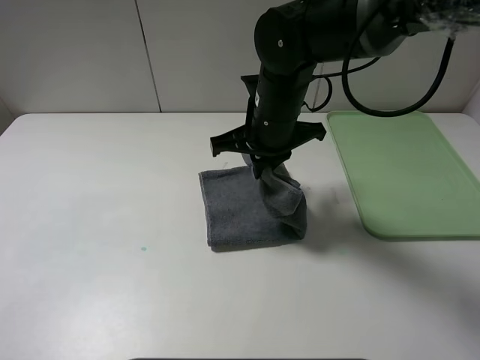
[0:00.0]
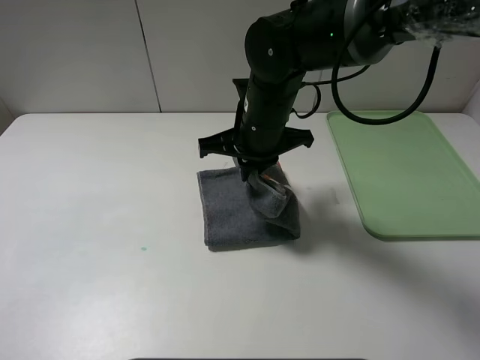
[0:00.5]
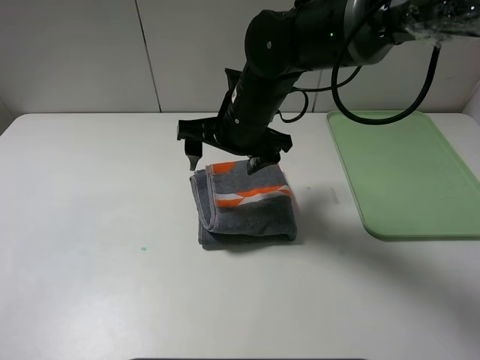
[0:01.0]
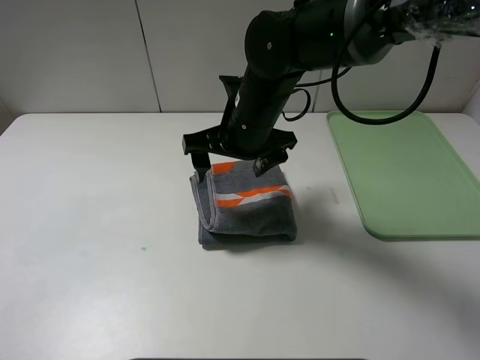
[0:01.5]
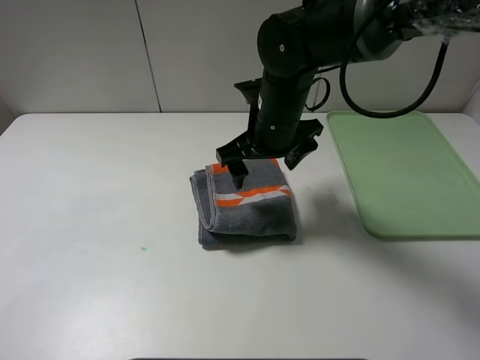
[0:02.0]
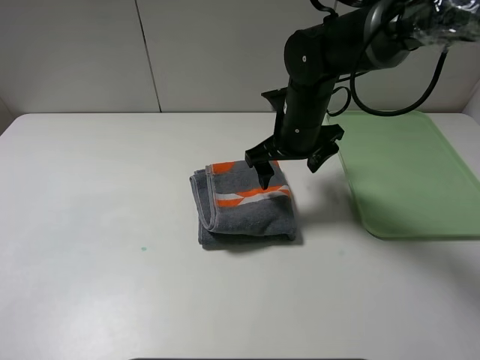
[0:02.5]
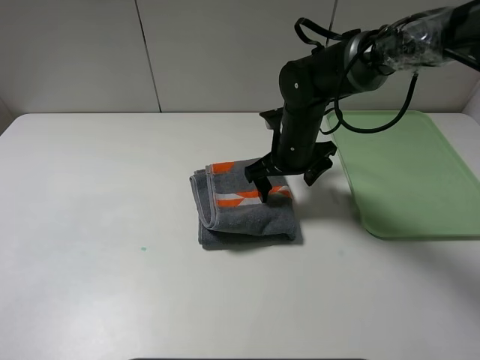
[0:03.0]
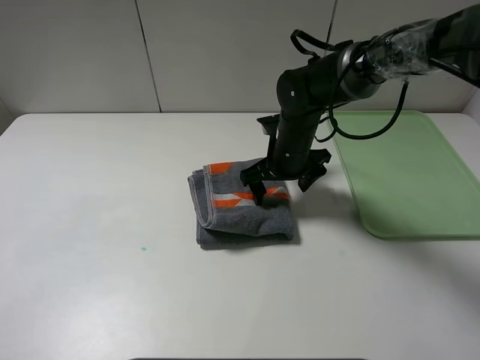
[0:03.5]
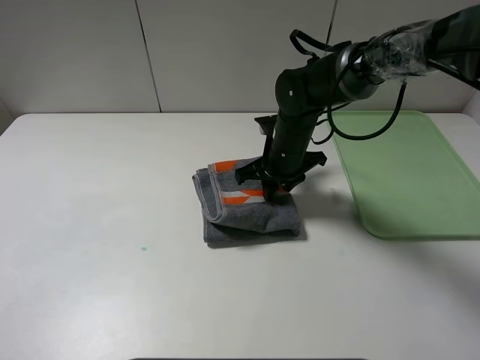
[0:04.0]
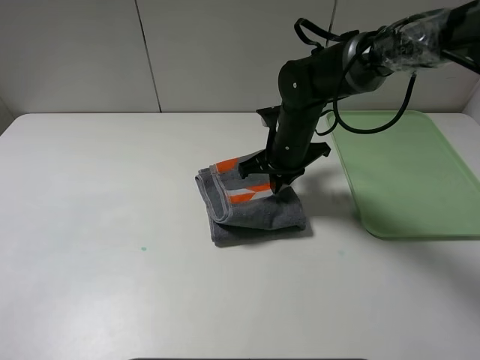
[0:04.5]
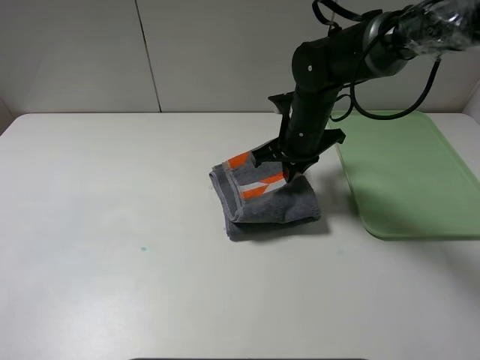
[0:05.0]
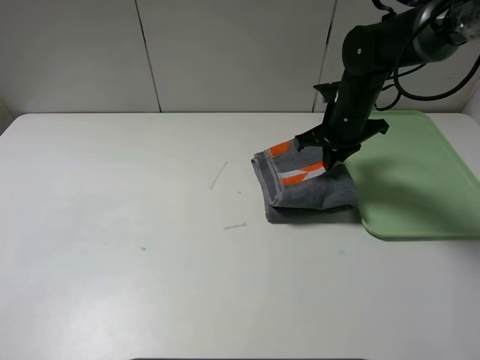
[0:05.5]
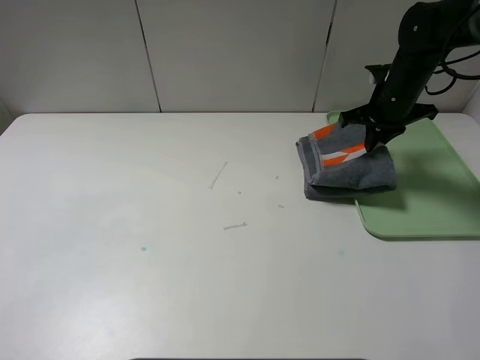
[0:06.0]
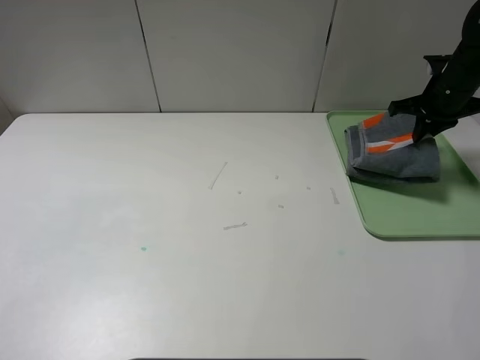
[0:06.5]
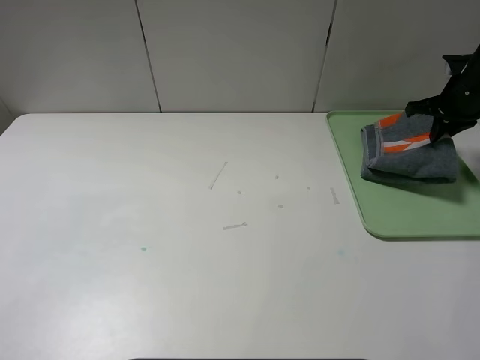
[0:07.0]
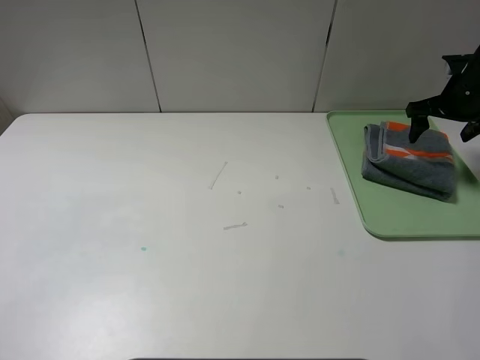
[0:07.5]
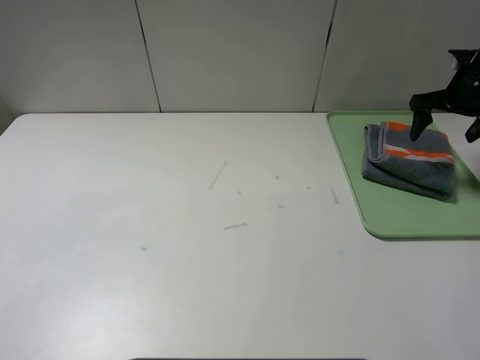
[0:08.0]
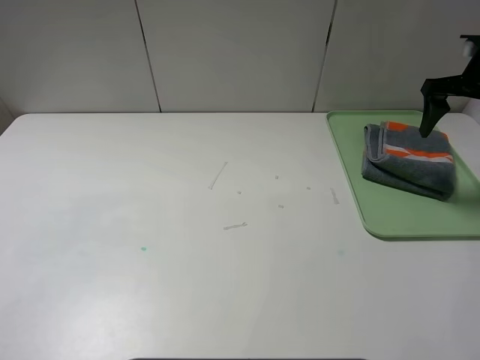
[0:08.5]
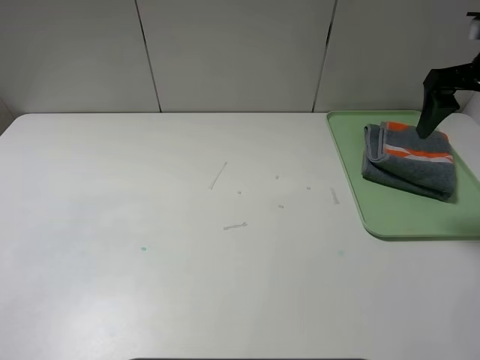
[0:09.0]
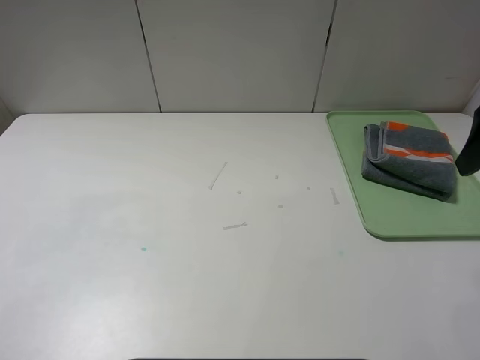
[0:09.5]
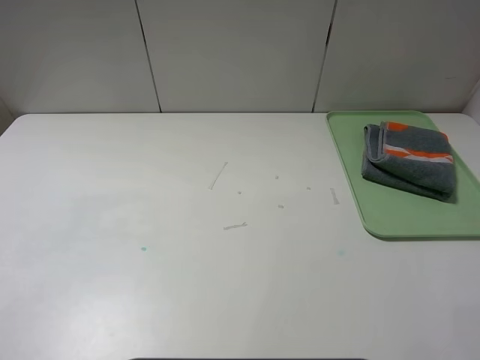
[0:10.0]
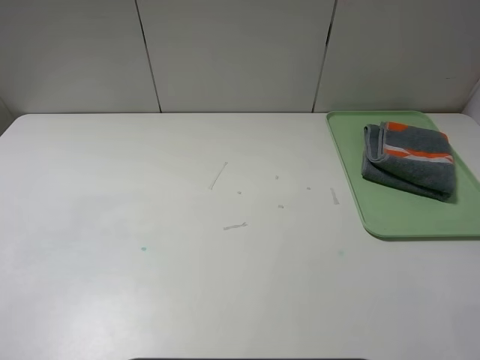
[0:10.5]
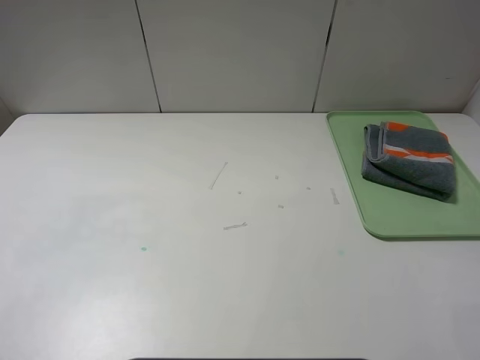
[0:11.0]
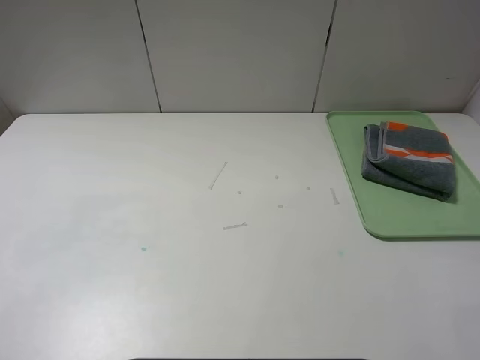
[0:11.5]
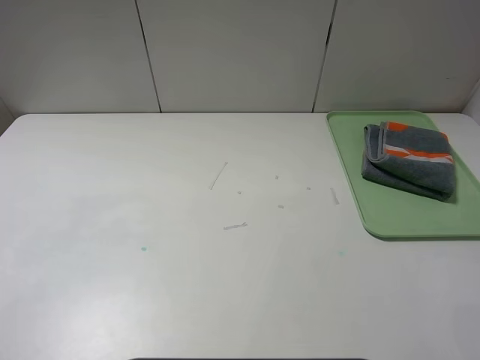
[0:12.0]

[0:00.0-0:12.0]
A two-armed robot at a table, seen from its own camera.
Step, 0:01.0 to 0:07.0: Place the folded grey towel on the tray with the right gripper.
0:00.0 to 0:02.0: The right gripper opens.
0:02.0 to 0:04.0: The right gripper goes approximately 10 cm downward, and closes.
0:04.0 to 0:06.0: The right gripper goes about 20 cm to the right.
0:06.0 to 0:08.0: The right gripper travels to the right by some 10 cm, and opens.
0:08.0 to 0:10.0: The right gripper travels backward by some 30 cm.

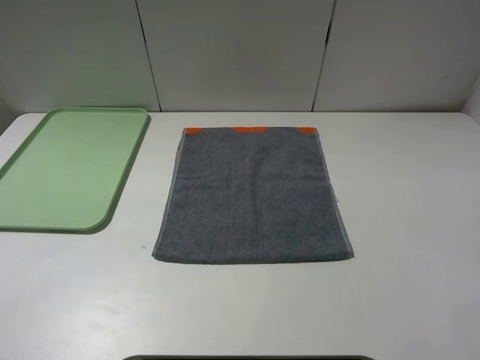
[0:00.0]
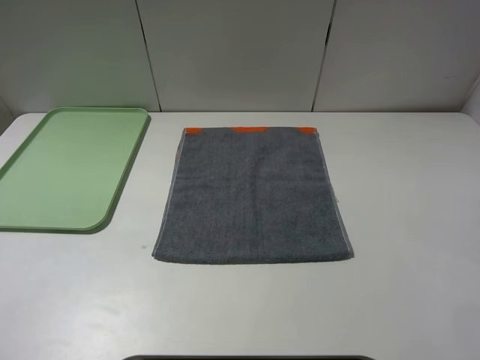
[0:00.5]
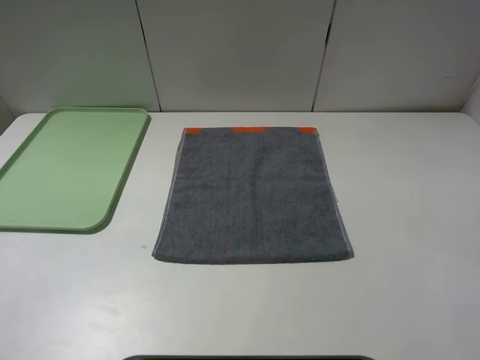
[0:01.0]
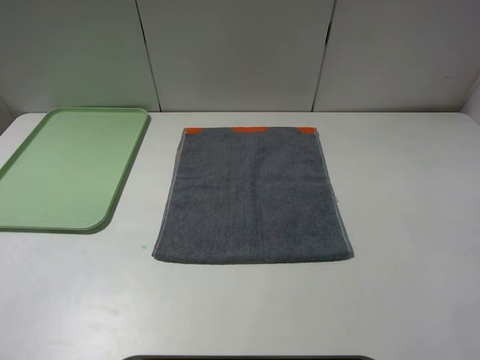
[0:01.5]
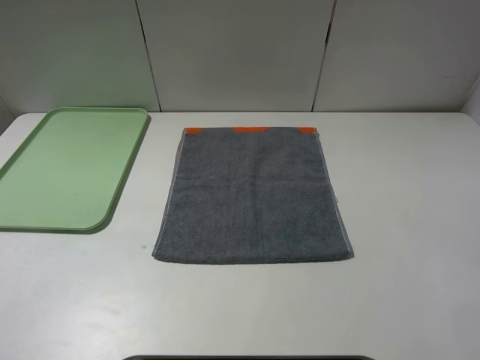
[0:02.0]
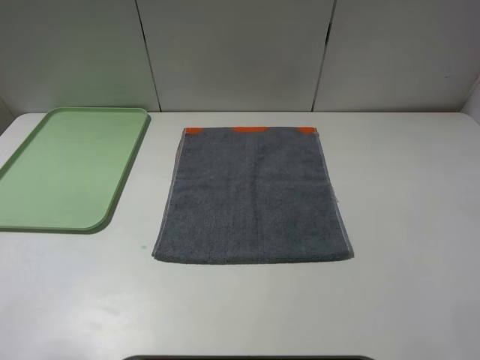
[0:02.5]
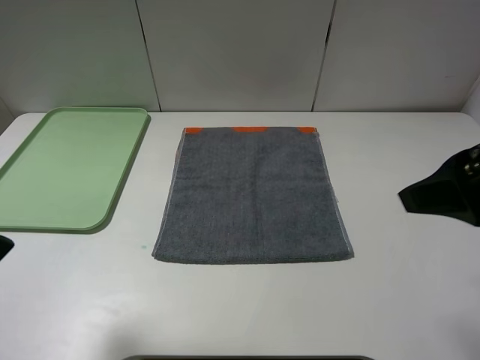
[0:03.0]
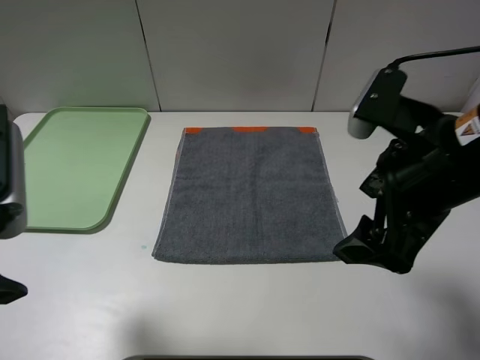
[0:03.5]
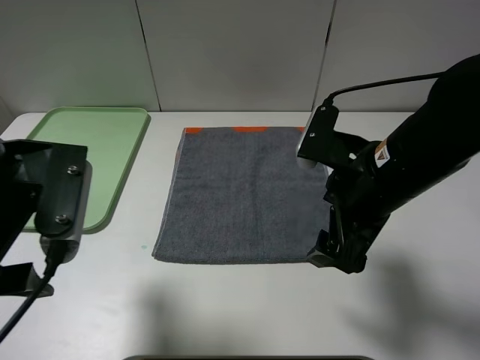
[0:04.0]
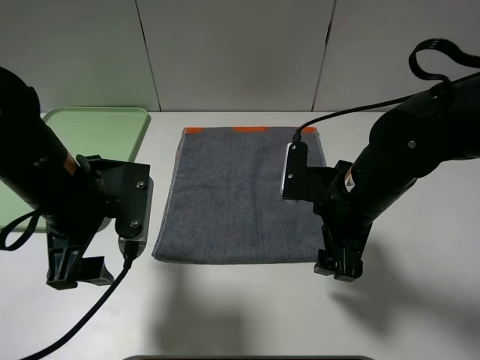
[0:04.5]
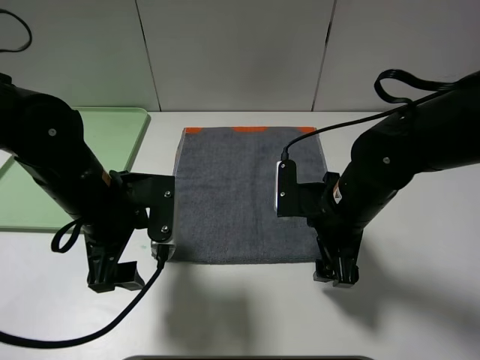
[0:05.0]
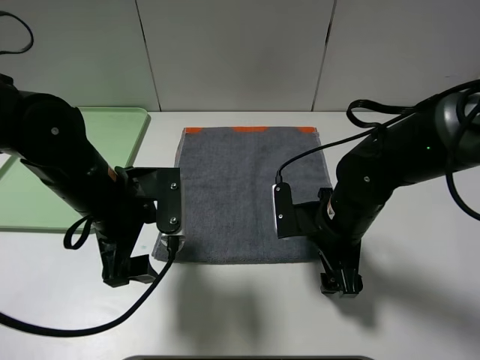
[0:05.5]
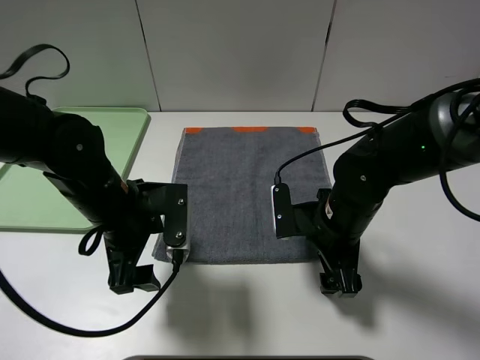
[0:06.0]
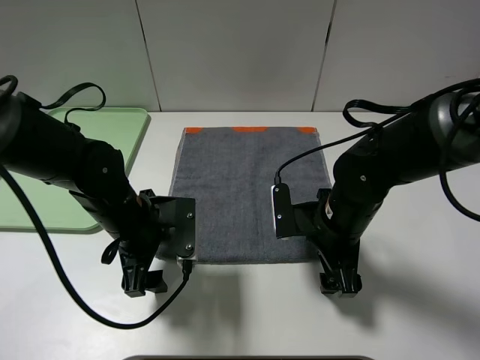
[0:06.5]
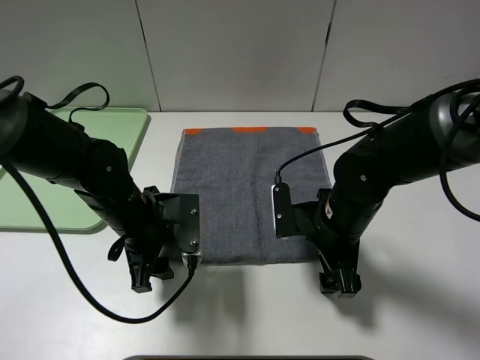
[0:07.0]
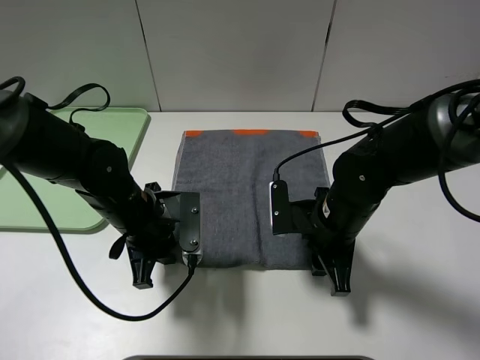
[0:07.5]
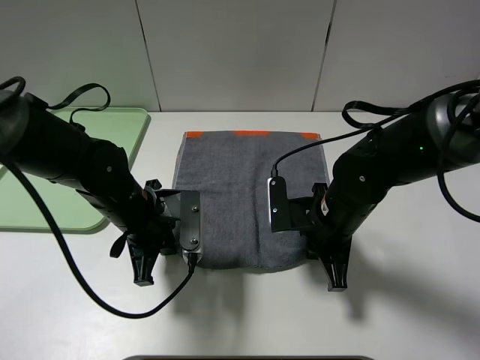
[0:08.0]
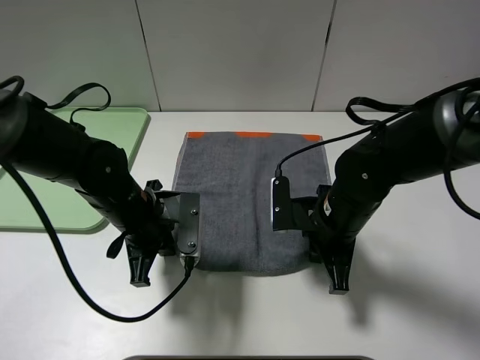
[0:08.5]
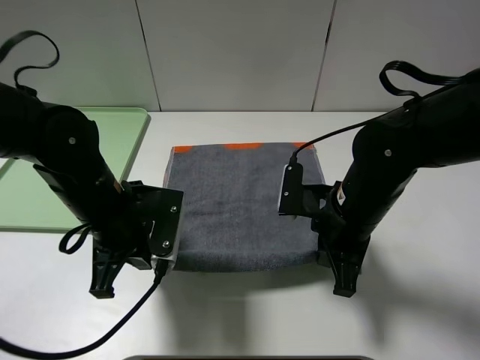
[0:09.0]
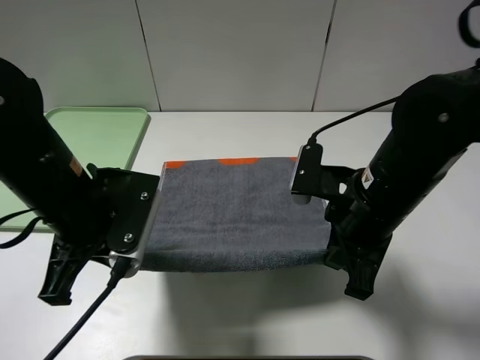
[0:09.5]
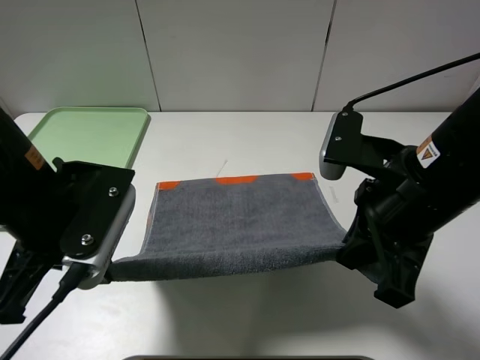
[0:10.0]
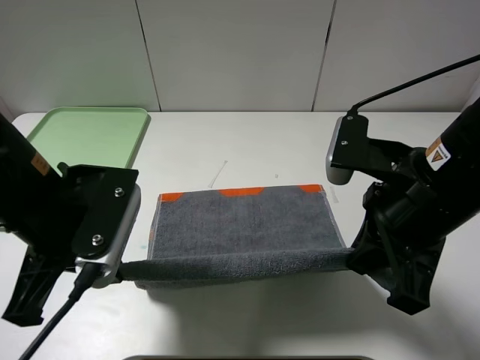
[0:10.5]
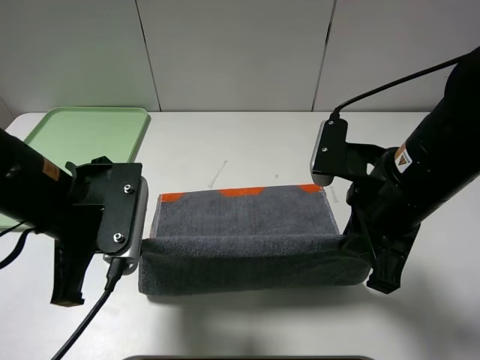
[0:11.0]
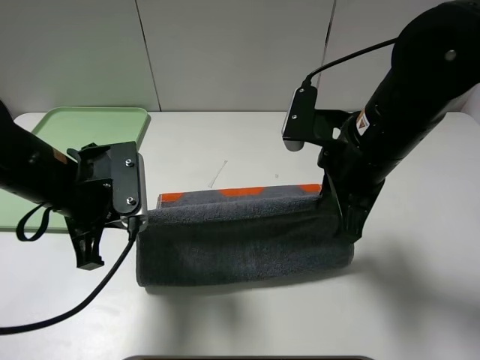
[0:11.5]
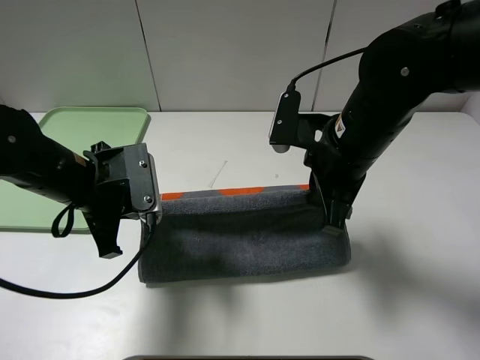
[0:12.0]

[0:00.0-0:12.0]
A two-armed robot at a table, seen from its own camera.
0:02.0 to 0:04.0: The right gripper travels forward, to the left and downward by about 25 cm. The left gripper shifts approximately 20 cm forward and to the right.
0:04.0 to 0:06.0: The left gripper moves downward, forward and to the right, some 15 cm, while the right gripper goes about 10 cm downward.
0:06.0 to 0:08.0: The right gripper closes up. The left gripper closes.
0:08.0 to 0:10.0: The two grippers go roughly 15 cm upward and backward.
0:10.0 to 0:12.0: The right gripper is displaced forward by approximately 10 cm, while the left gripper heads forward and downward, covering roughly 10 cm.

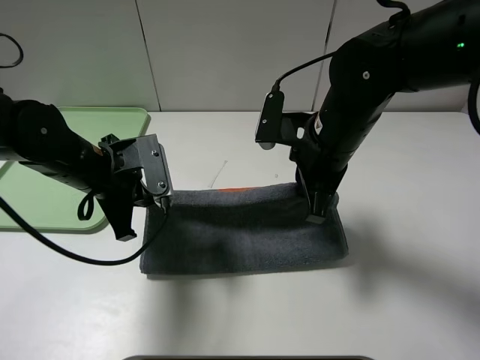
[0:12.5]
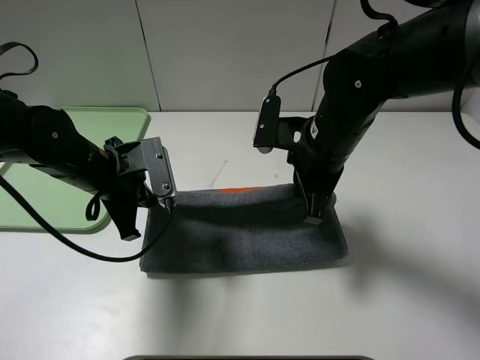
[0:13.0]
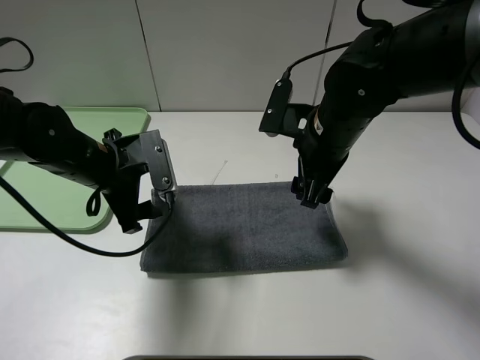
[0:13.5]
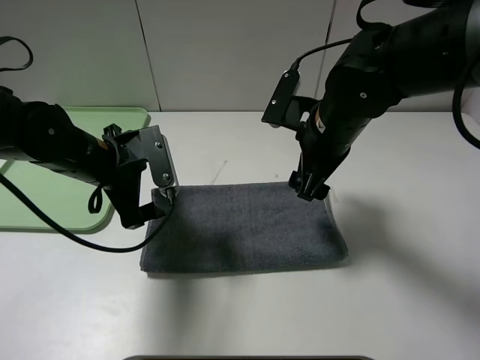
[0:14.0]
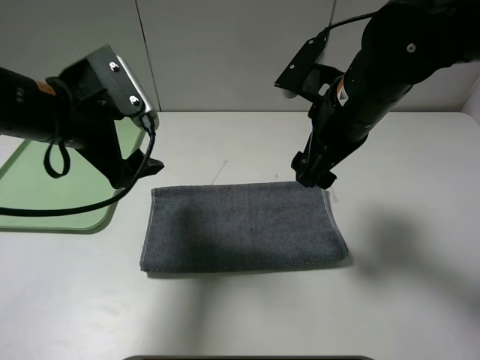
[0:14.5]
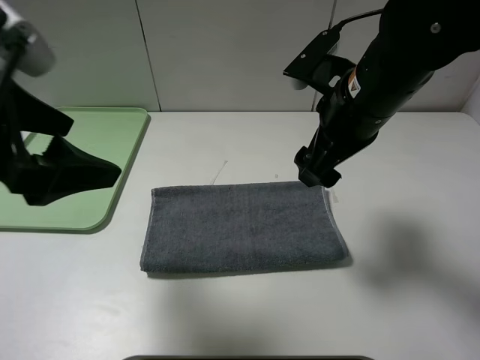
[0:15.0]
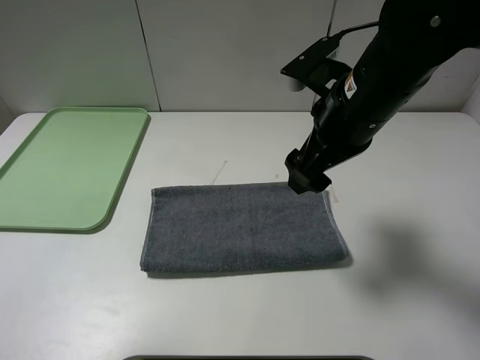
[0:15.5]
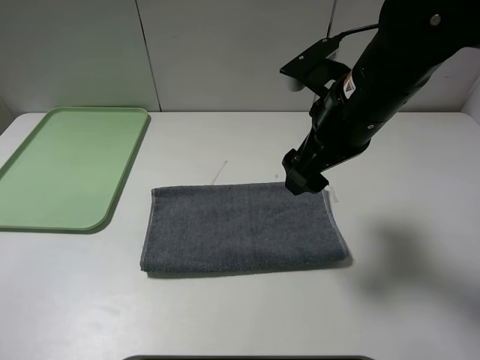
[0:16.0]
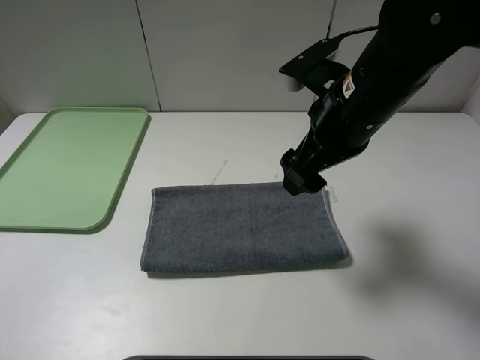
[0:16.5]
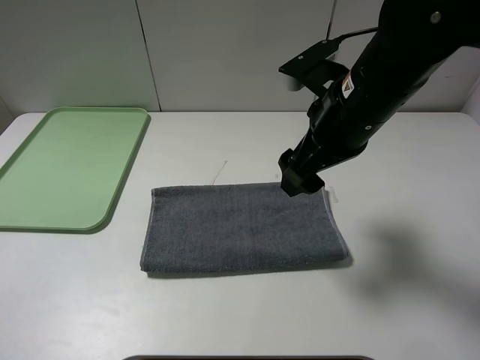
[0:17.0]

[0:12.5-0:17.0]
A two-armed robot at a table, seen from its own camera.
0:12.5 to 0:14.5: The right gripper opens its fingers. The left gripper heads upward, covering approximately 10 cm, and opens its fingers.
0:14.5 to 0:17.0: The left gripper is displaced backward and to the left by some 25 cm.
